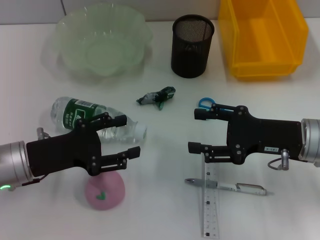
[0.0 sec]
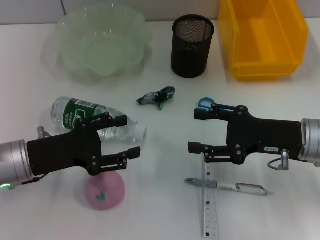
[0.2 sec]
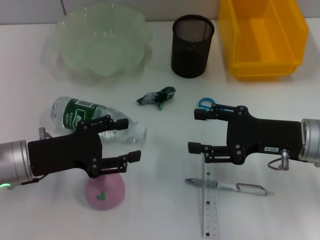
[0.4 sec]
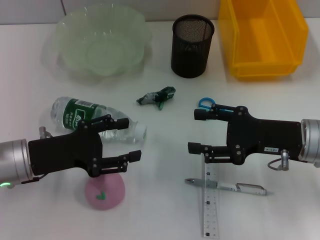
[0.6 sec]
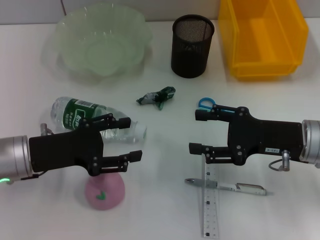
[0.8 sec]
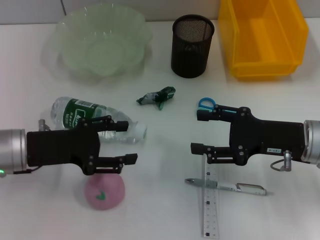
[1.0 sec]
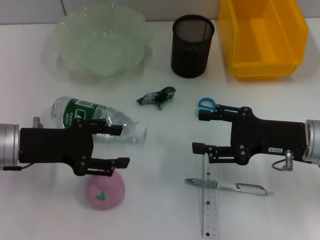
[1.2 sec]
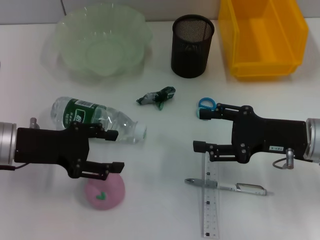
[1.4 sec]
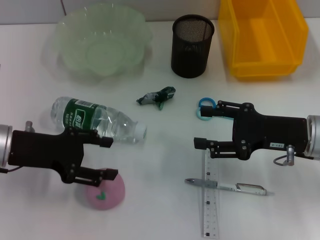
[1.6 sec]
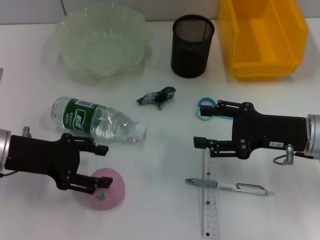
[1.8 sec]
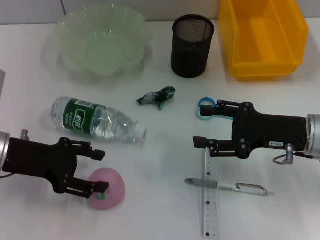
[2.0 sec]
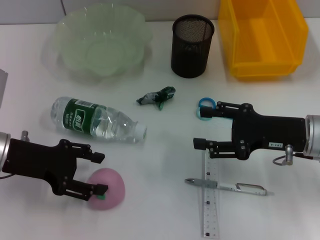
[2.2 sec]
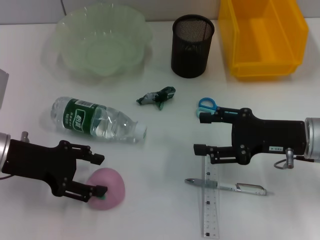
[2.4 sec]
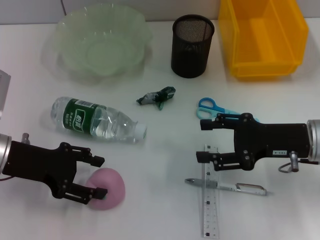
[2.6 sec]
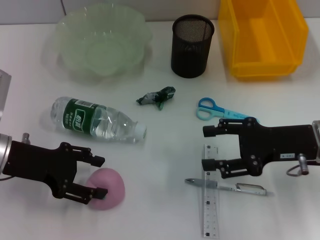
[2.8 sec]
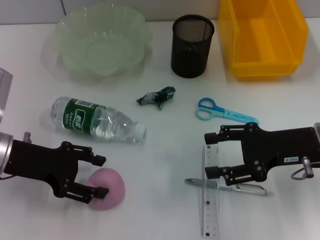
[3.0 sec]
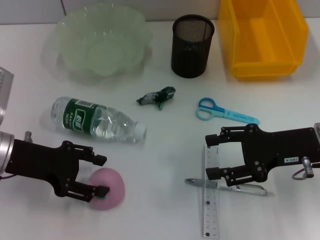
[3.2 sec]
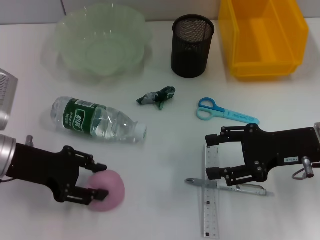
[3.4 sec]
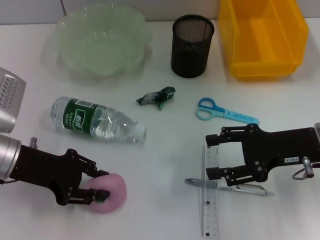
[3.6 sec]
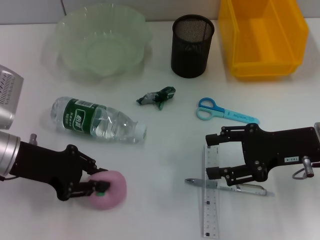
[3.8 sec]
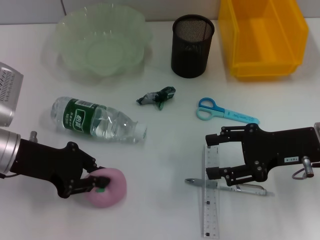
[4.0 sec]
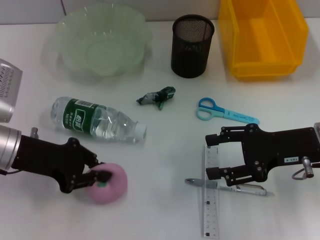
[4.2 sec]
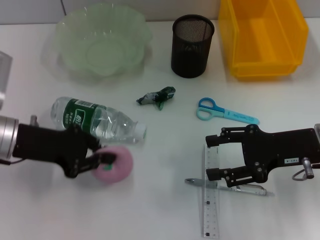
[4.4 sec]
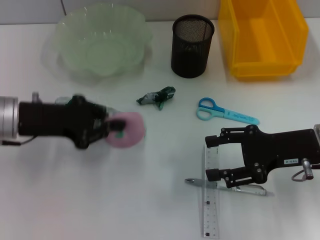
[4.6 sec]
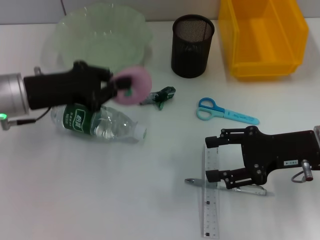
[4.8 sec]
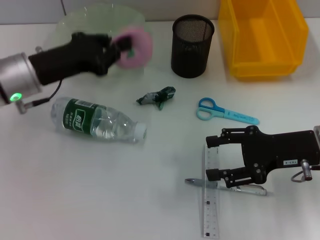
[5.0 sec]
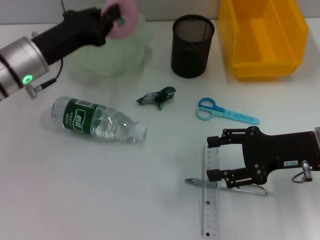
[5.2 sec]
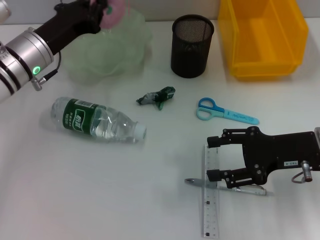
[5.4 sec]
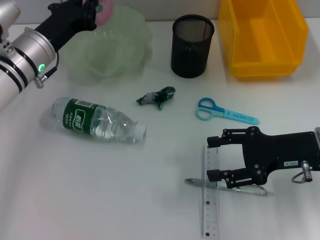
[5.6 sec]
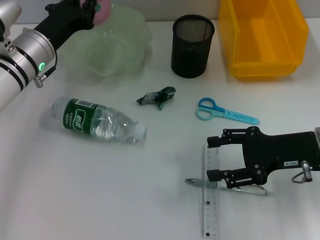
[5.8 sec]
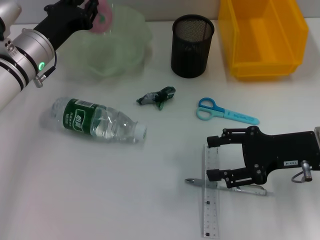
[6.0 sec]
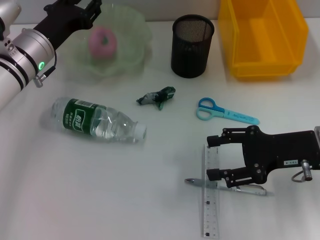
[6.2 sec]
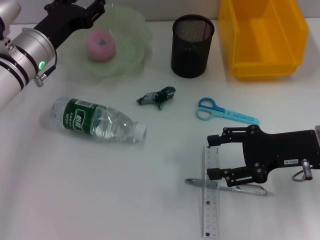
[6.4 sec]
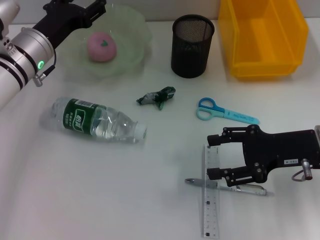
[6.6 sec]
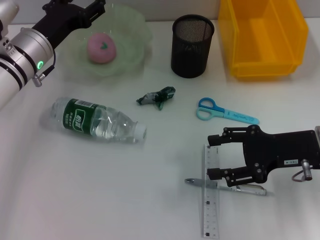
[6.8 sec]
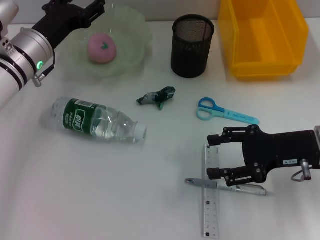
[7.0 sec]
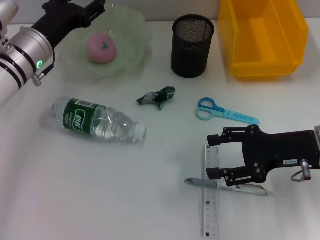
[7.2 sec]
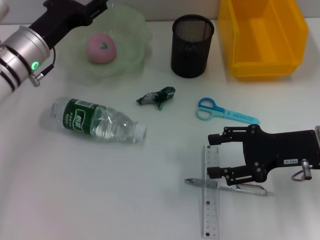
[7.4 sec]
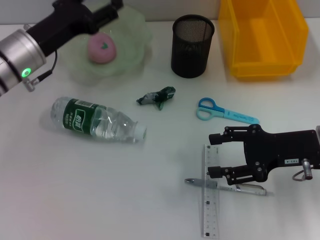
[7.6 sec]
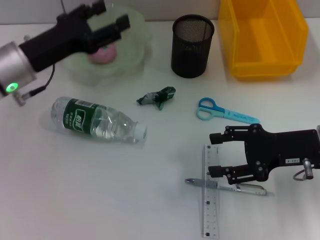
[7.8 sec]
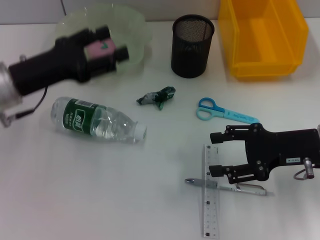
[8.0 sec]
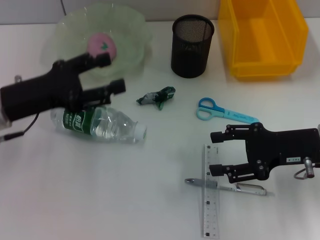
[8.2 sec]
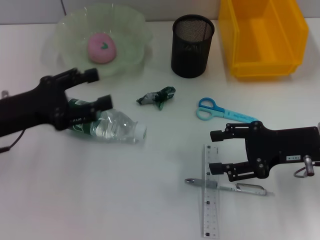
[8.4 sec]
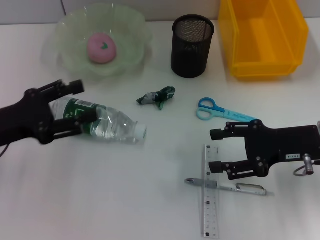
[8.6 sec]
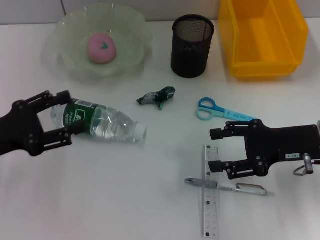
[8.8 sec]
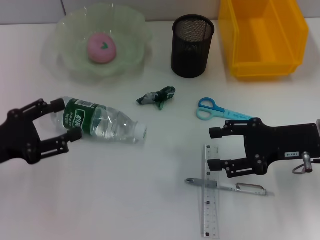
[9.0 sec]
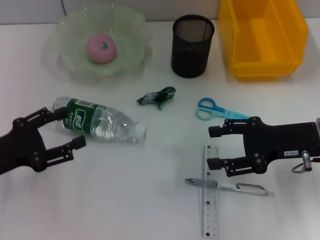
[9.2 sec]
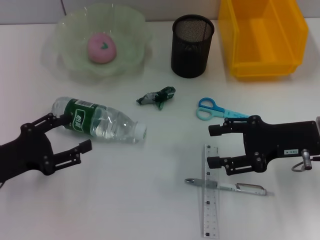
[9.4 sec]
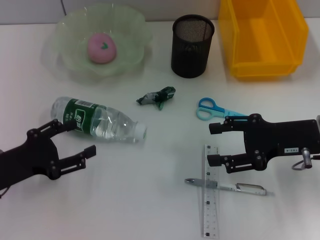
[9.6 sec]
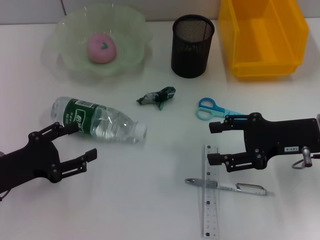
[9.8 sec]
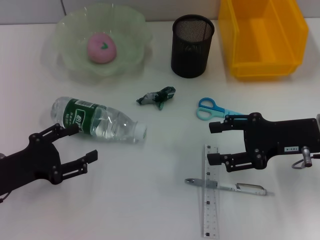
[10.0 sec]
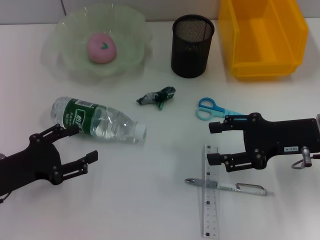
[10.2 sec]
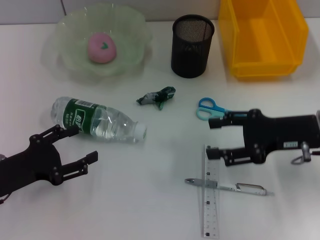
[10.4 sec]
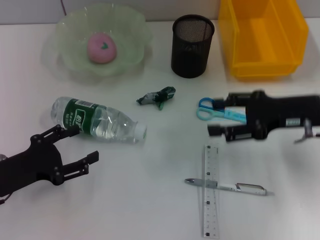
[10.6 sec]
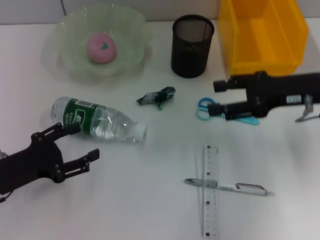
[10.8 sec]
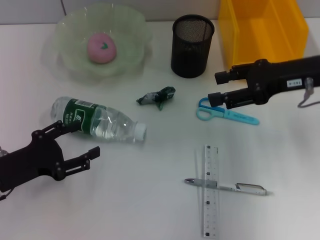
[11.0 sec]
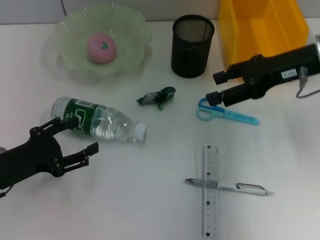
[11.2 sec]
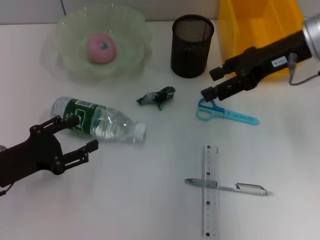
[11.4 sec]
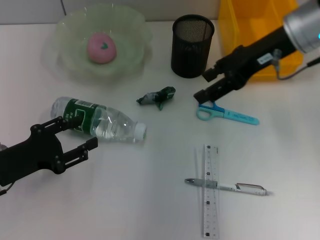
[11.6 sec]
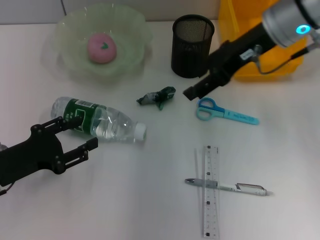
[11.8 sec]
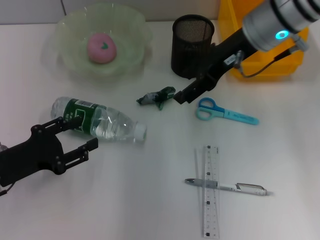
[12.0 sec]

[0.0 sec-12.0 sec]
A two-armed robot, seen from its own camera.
Step, 0.0 sec to 3.8 sec: Grab the peach with the left hand.
Step, 4.0 sec to 6.4 sec: Place the peach into the fruit bowl with the left hand.
0.0 sec to 1.6 sec: The left gripper changes place by roughly 5 cm.
1.6 sec to 3.0 sec: There are only small adjustments of the grippers.
3.0 sec to 4.4 sec: The left gripper closes up.
4.4 sec to 6.0 sec: The left gripper travels forward by about 10 cm.
6.0 sec to 7.6 sec: The left gripper opens.
7.6 sec to 9.0 sec: The left gripper goes some 15 cm backward and to the left.
9.0 sec to 10.4 sec: The left gripper changes place by about 5 cm.
10.4 sec to 12.0 sec: The right gripper shifts some 20 cm to the left, upward and forward.

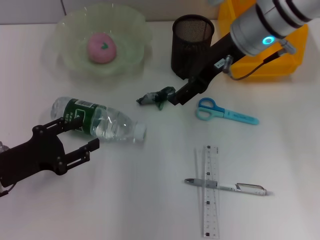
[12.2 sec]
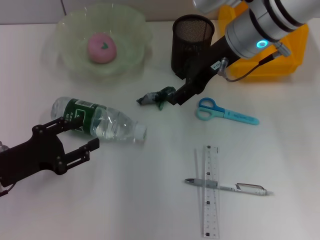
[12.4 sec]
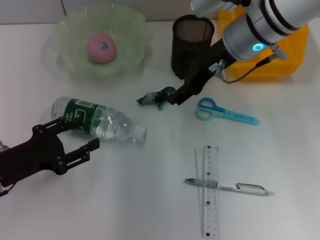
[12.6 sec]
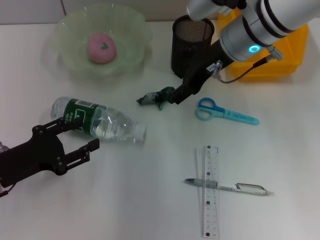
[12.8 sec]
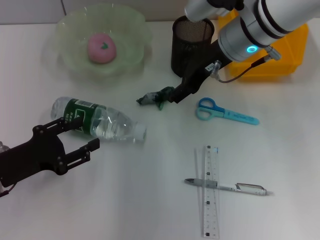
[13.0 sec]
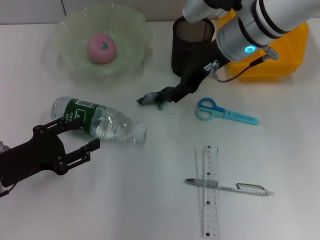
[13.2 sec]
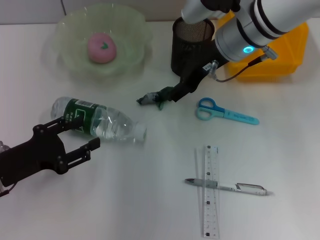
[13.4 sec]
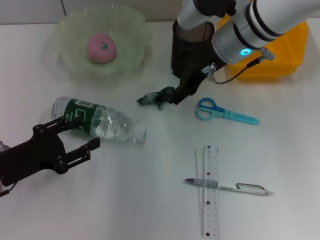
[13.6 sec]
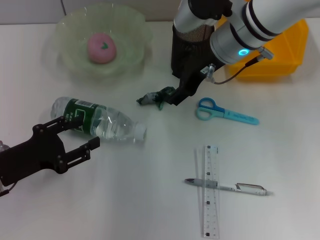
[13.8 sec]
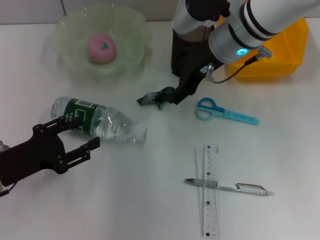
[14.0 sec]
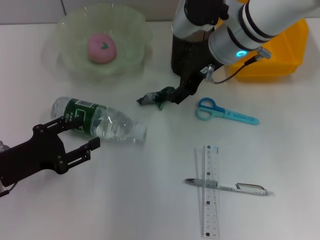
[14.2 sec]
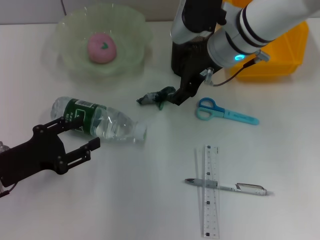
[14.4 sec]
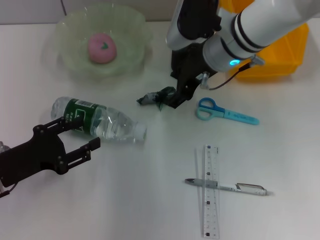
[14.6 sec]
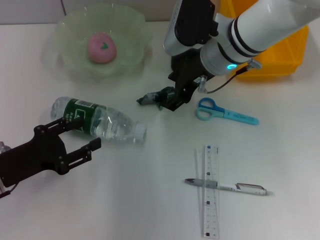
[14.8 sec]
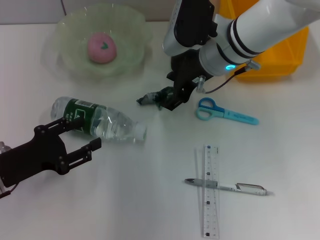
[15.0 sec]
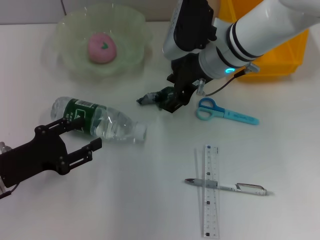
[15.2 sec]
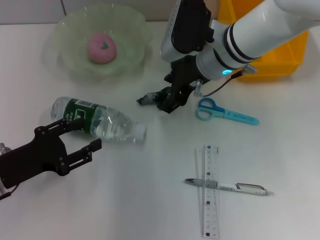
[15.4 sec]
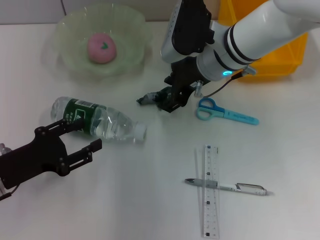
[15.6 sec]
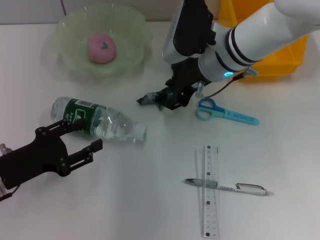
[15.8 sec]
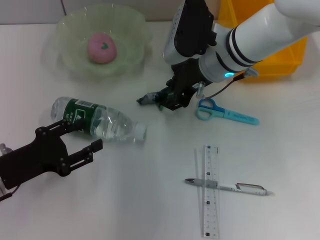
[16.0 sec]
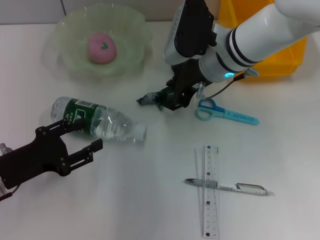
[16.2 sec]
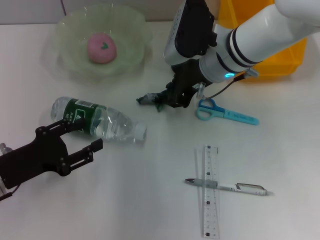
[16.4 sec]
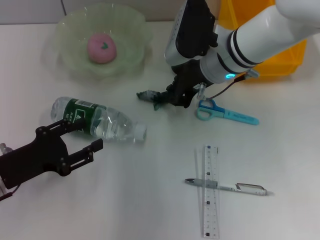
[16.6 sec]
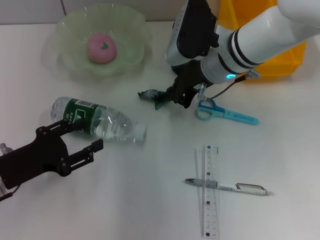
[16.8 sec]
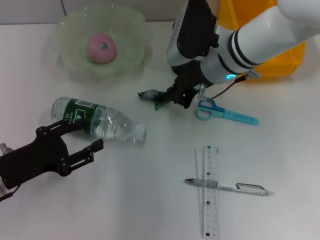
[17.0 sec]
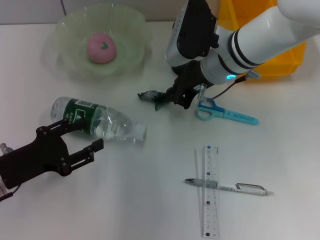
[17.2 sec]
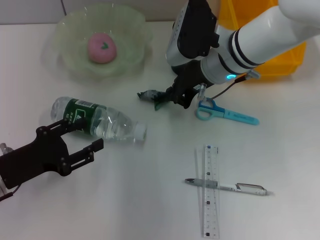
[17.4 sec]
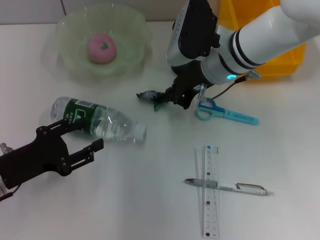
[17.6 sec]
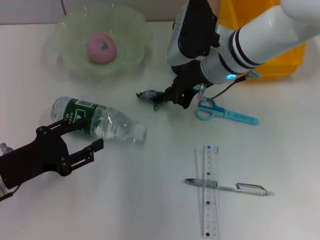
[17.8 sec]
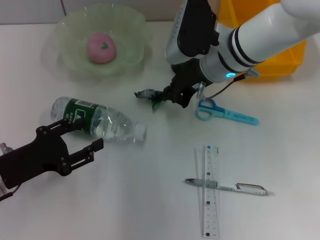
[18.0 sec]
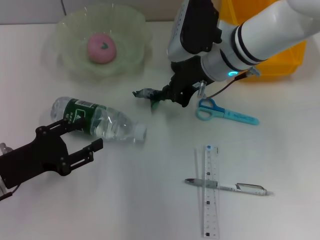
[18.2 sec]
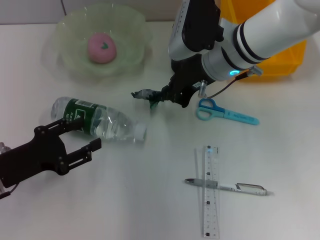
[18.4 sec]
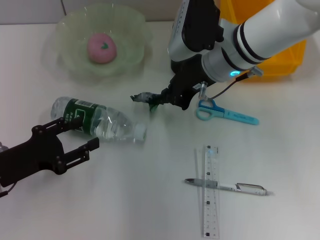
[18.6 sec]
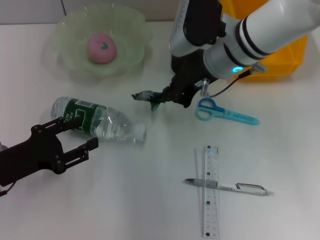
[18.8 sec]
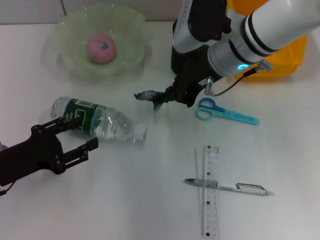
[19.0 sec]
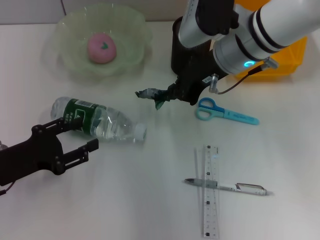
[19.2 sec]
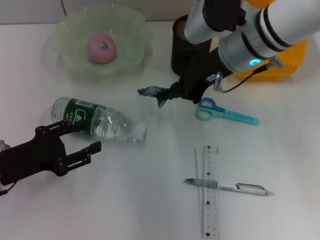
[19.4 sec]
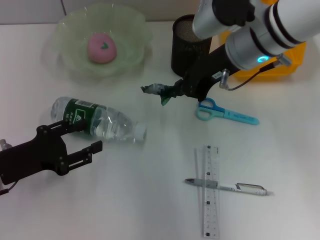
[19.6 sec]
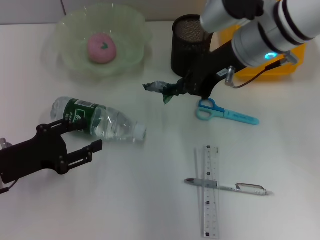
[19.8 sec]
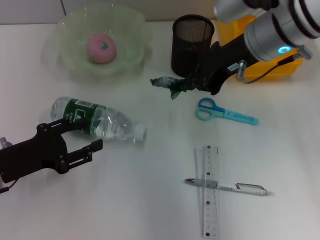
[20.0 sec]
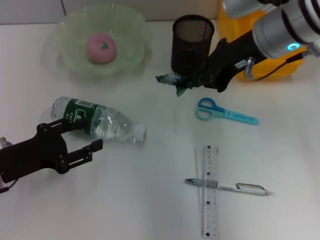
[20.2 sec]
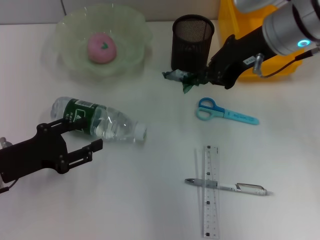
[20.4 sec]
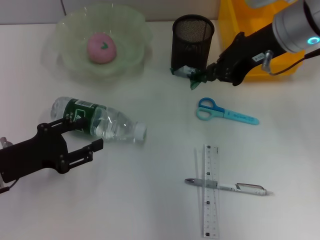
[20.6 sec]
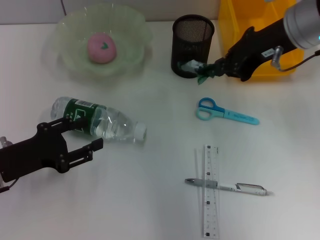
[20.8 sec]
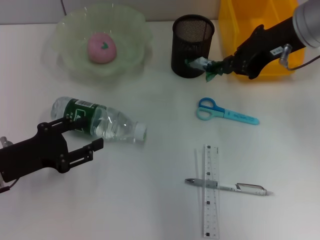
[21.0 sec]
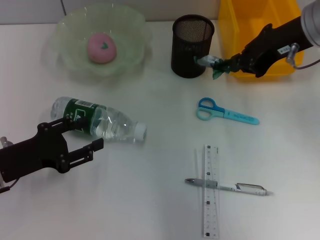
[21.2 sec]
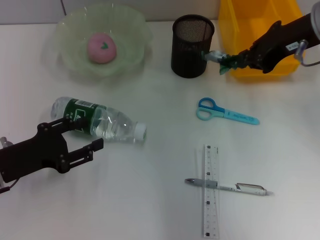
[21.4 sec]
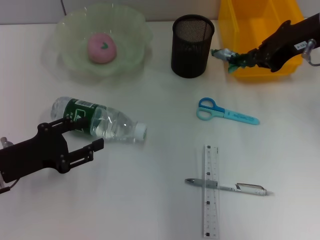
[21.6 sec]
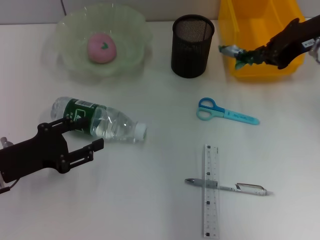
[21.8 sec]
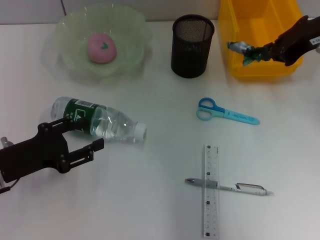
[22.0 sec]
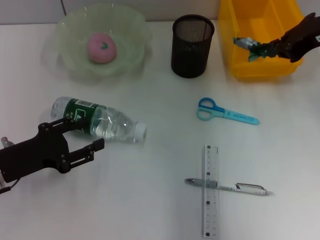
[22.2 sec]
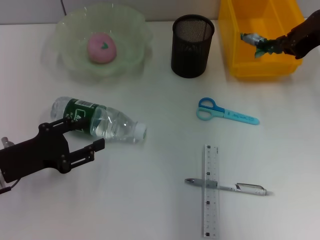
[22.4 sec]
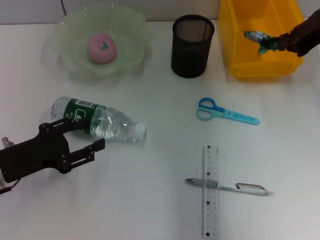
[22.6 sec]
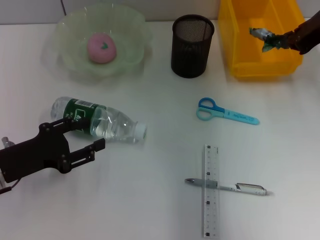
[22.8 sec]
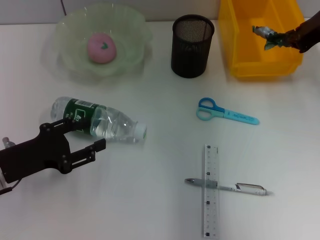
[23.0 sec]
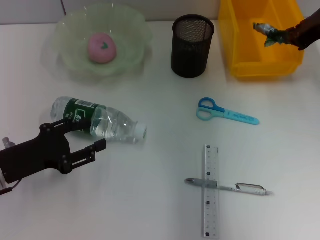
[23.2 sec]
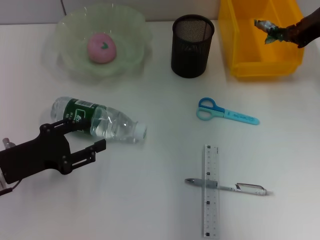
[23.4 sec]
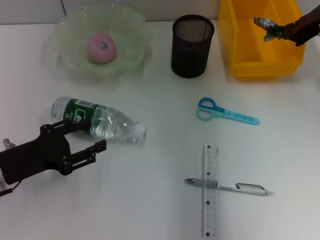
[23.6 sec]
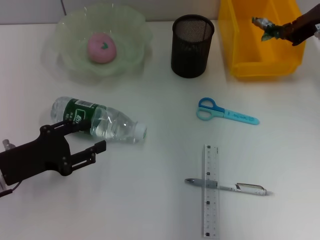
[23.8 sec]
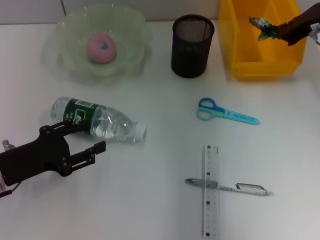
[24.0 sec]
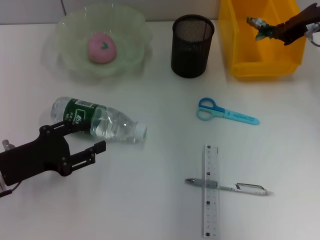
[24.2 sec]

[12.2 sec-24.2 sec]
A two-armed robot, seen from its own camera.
Step, 12.2 sec to 16.6 sec: Grab the plastic with the right hand.
12.2 sec to 13.8 sec: The grippers stay close to where they were, moving slightly.
13.8 sec to 15.2 sec: There are only small adjustments of the grippers.
15.2 sec to 16.6 sec: The right gripper closes up.
16.6 sec to 18.2 sec: Neither gripper changes place.
18.2 sec to 19.8 sec: The right gripper moves upward, roughly 5 cm.
19.8 sec to 21.2 sec: The right gripper goes approximately 5 cm to the right.
21.2 sec to 22.6 sec: The right gripper goes about 5 cm to the right.
22.6 sec to 24.2 sec: The right gripper changes place by roughly 5 cm.
